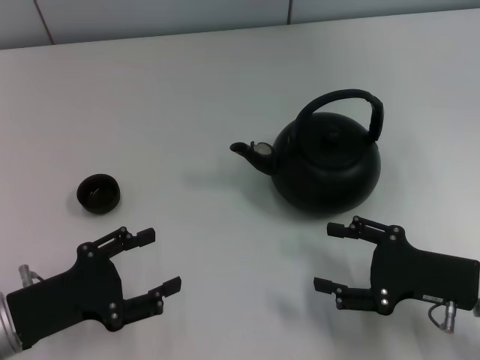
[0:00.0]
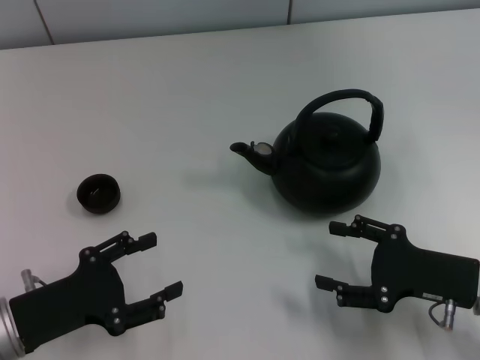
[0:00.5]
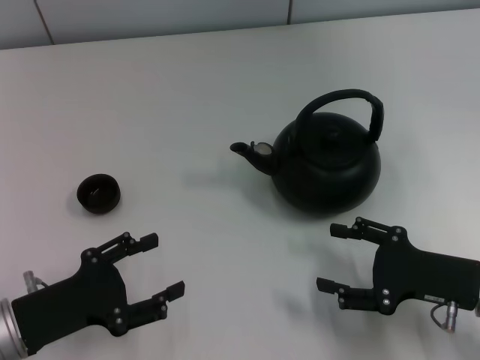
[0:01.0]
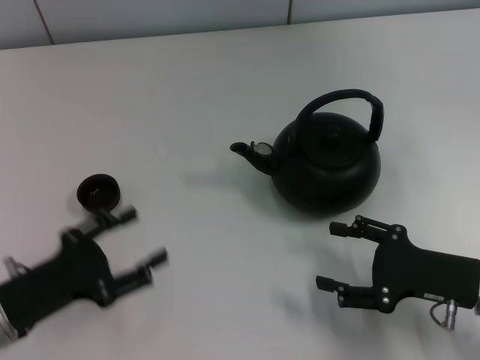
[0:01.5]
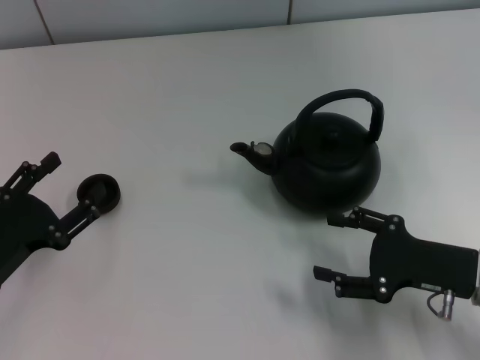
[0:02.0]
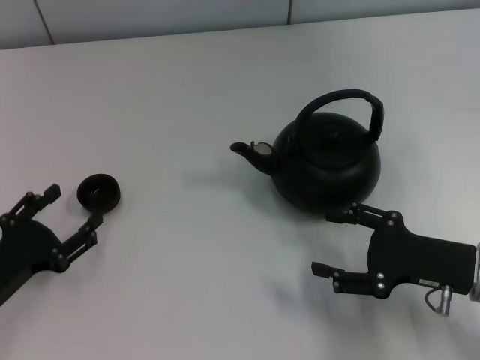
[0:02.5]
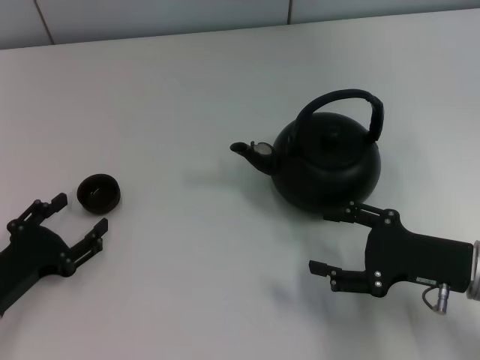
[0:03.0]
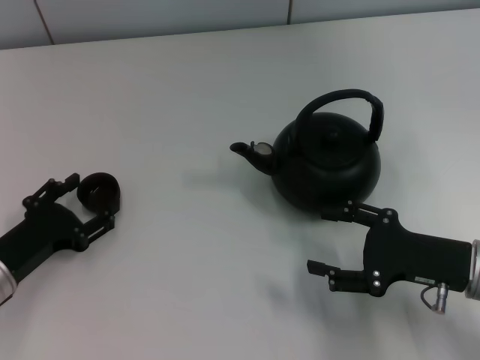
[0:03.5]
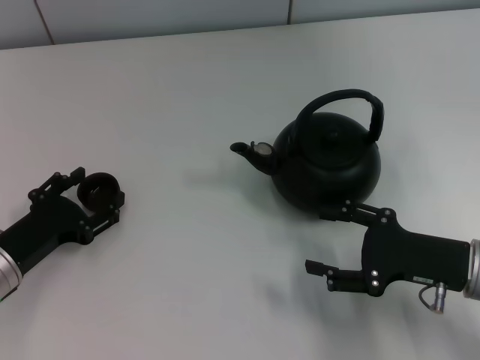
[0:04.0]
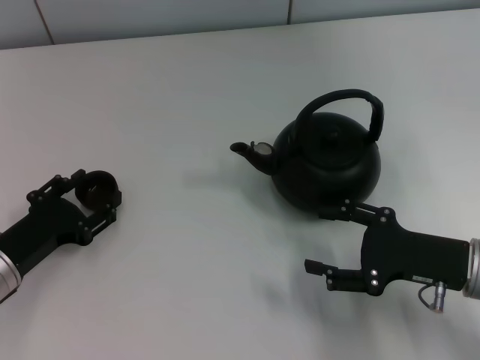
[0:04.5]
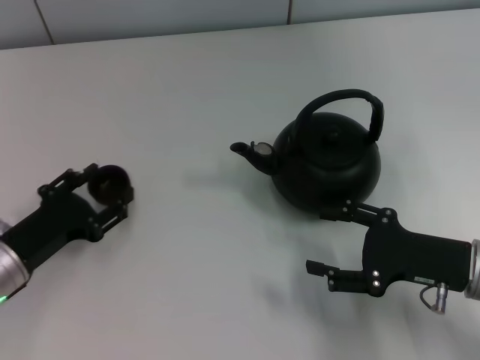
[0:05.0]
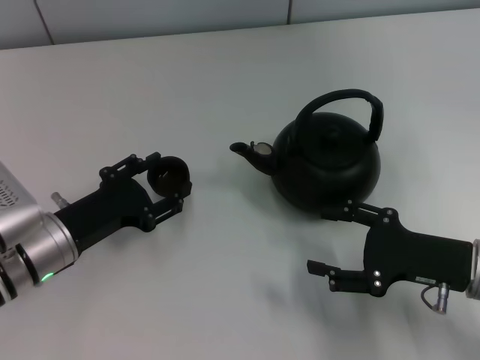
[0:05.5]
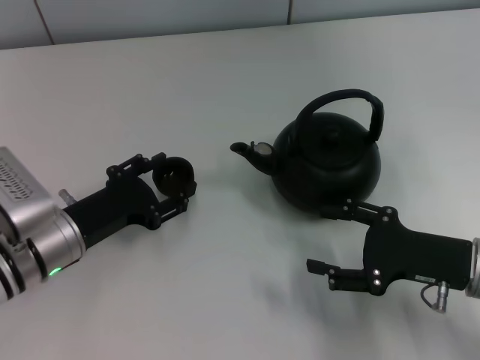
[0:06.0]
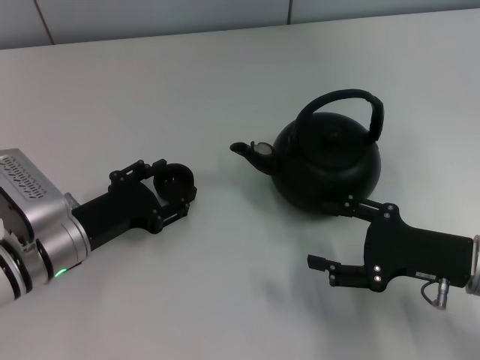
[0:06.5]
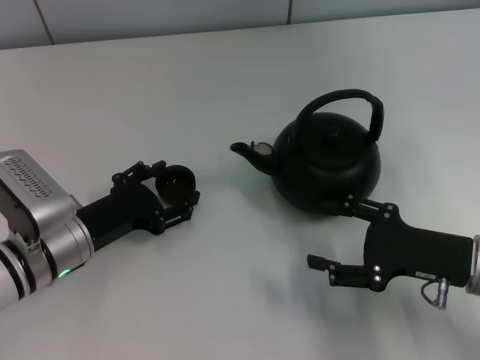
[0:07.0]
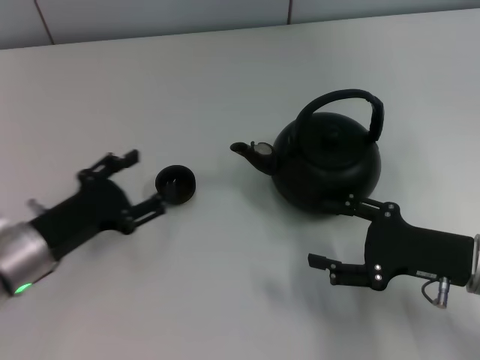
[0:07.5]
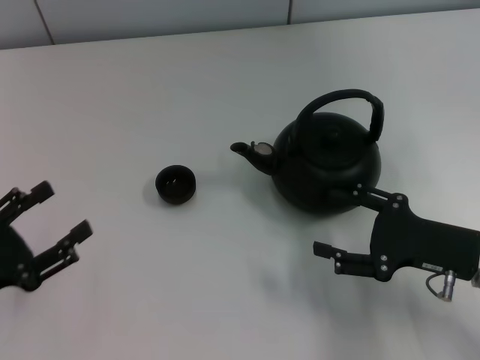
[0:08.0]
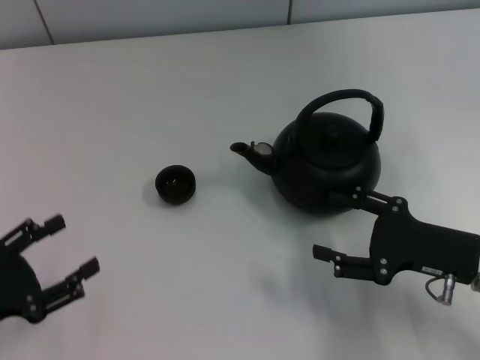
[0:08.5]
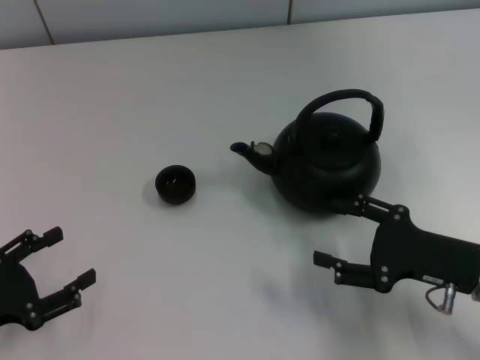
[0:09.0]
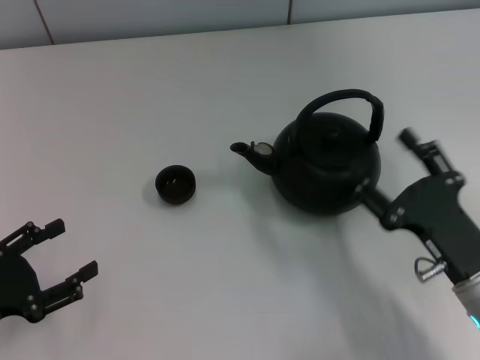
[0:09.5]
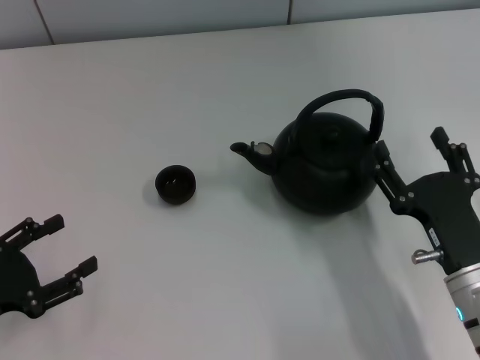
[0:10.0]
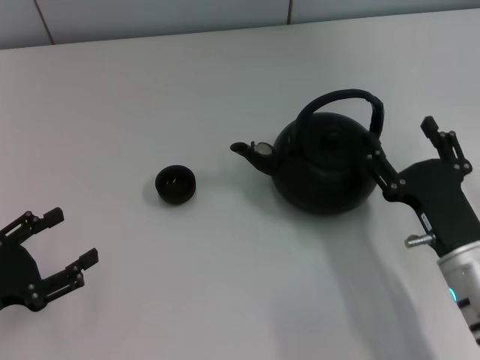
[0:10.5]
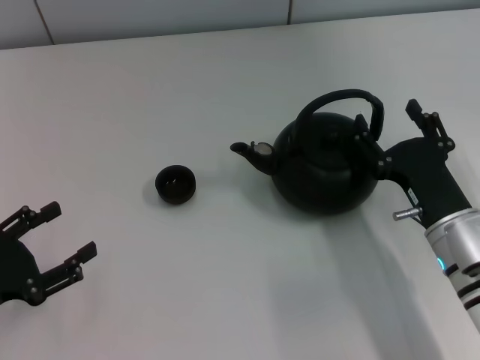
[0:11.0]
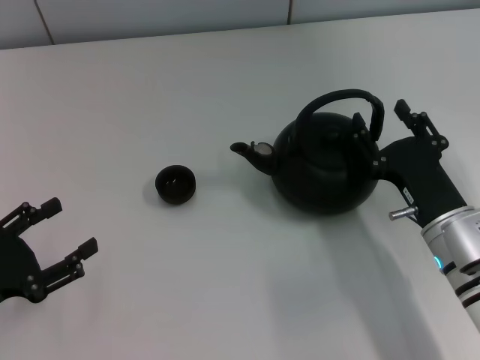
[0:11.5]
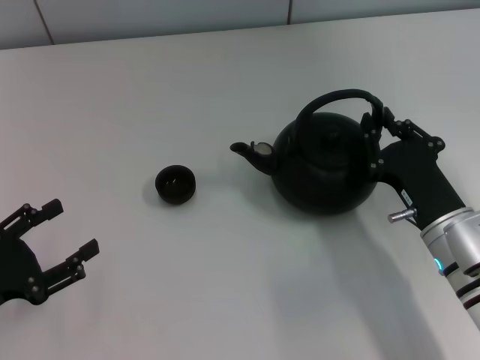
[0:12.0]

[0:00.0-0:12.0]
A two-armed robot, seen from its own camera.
Task of the whole recording: Grasp the handle of the teapot with one hand and pour tea into the teacup.
Step, 0:00.0 to 0:05.0: Pick up the teacup with the left gripper.
Step, 0:05.5 to 0:07.5: Place the teacup in the center of view with the left gripper.
0:02.0 to 0:04.0: The grippers stay close to where they were, moving slightly.
0:04.0 to 0:06.0: The left gripper moves to the right, about 5 cm.
0:06.0 to 0:08.0: The left gripper goes some 15 cm to the left and backward.
0:08.0 to 0:10.0: The right gripper goes about 5 cm to the left.
0:10.0 to 0:12.0: The right gripper moves forward, some 5 cm, and closes.

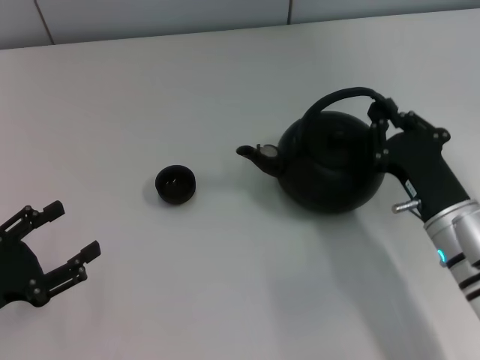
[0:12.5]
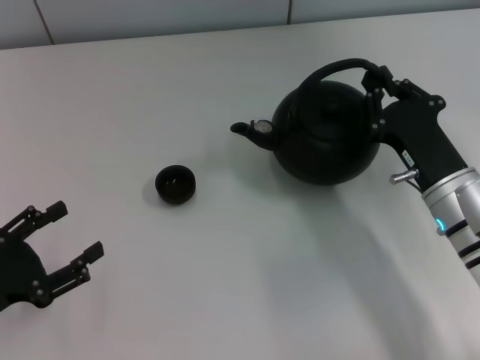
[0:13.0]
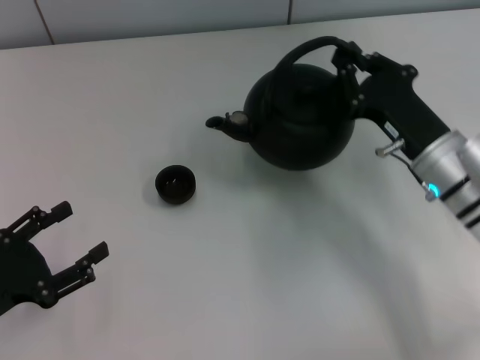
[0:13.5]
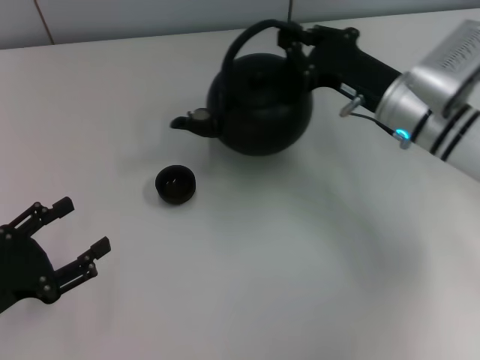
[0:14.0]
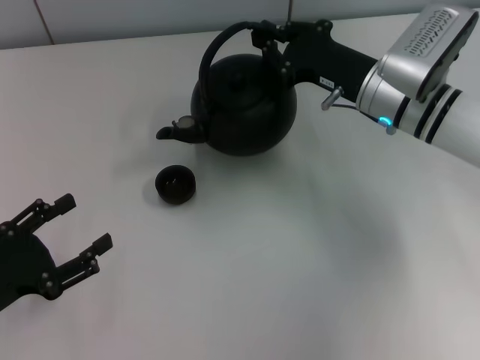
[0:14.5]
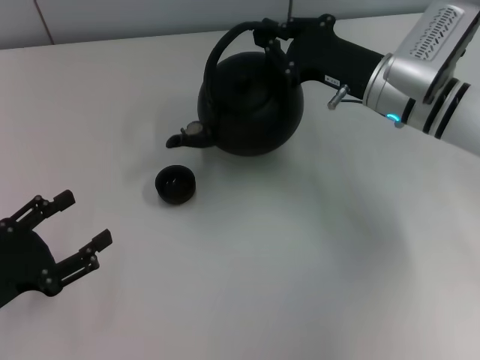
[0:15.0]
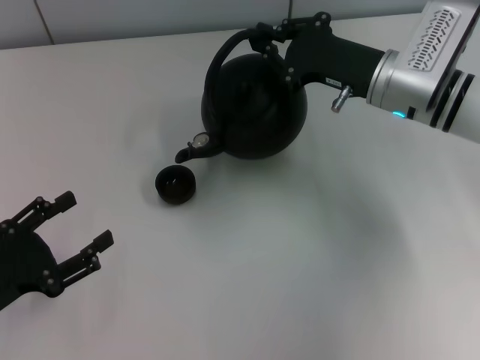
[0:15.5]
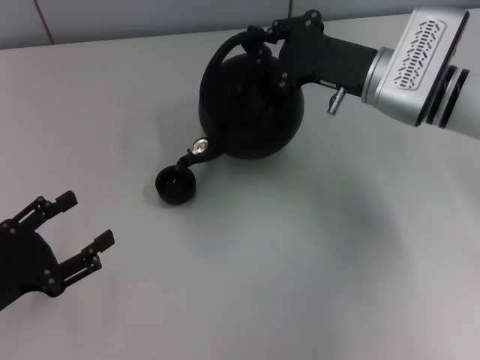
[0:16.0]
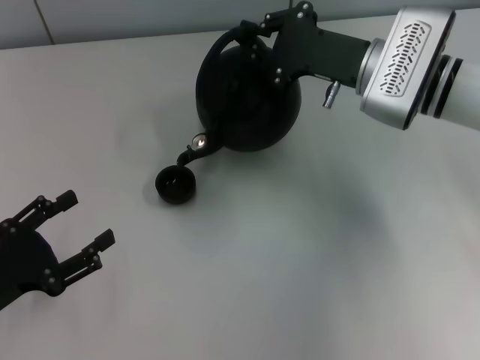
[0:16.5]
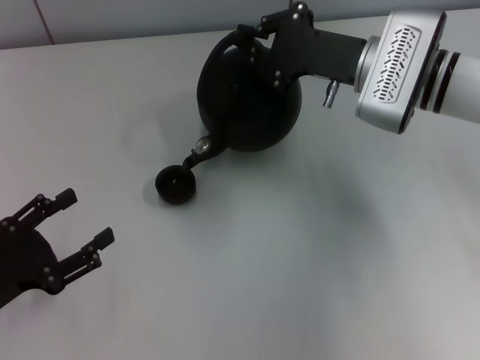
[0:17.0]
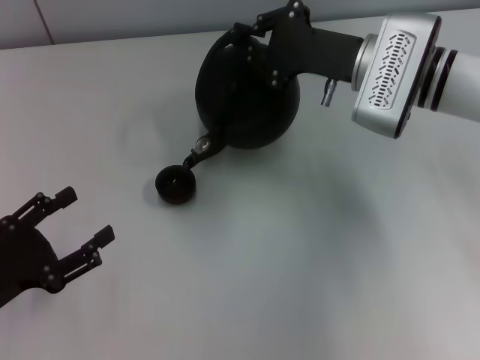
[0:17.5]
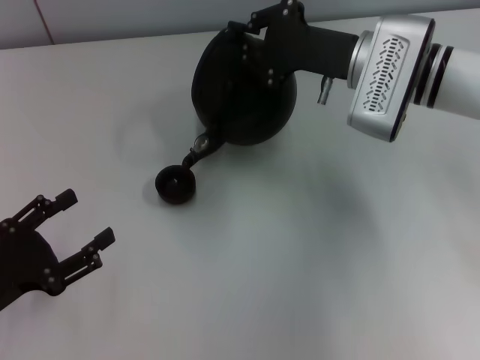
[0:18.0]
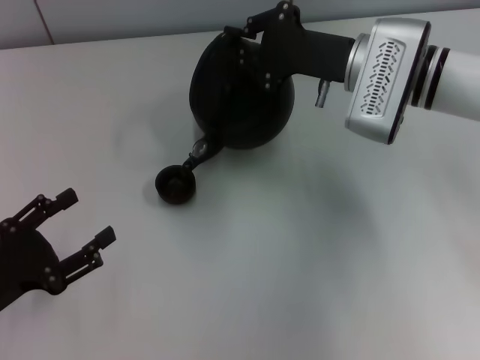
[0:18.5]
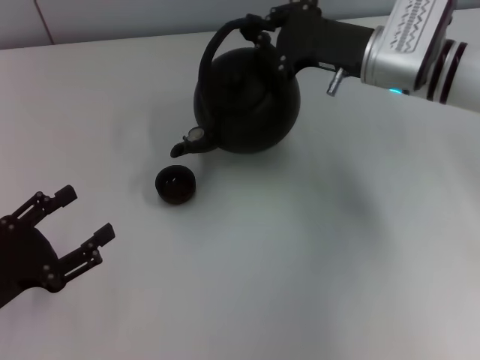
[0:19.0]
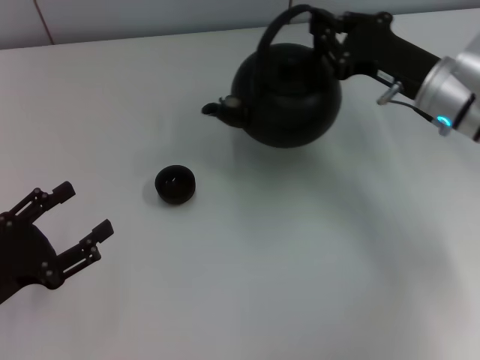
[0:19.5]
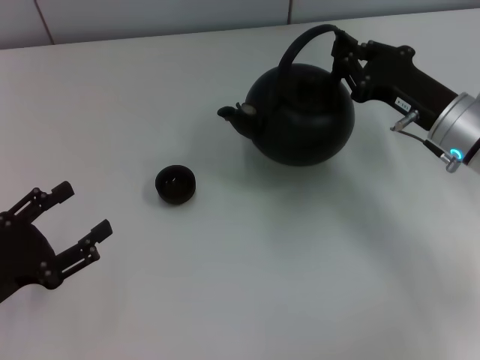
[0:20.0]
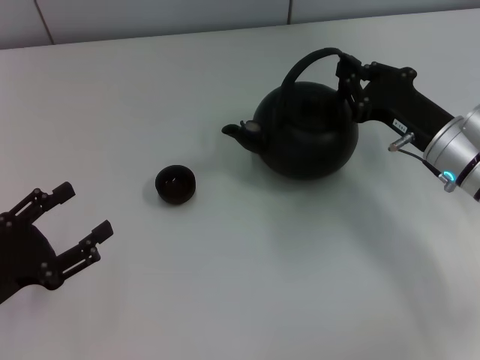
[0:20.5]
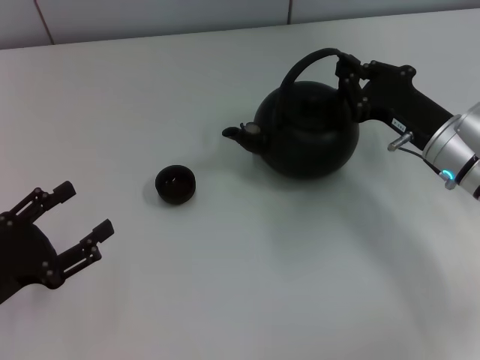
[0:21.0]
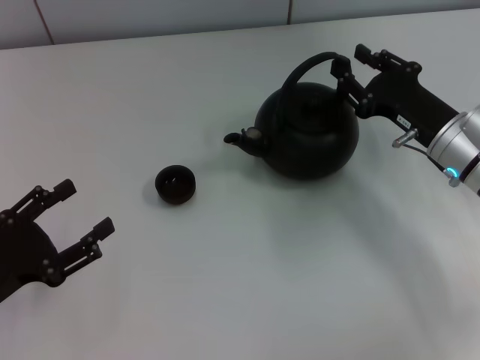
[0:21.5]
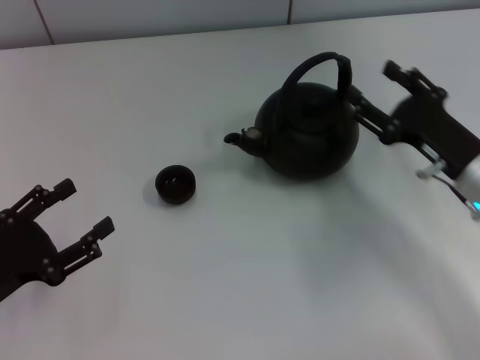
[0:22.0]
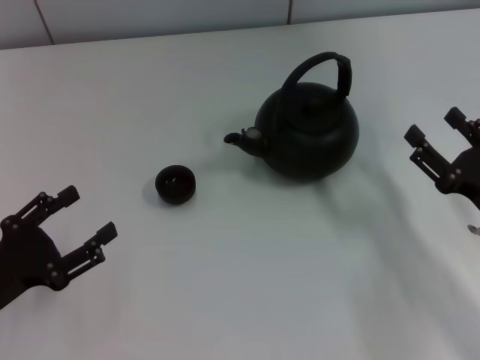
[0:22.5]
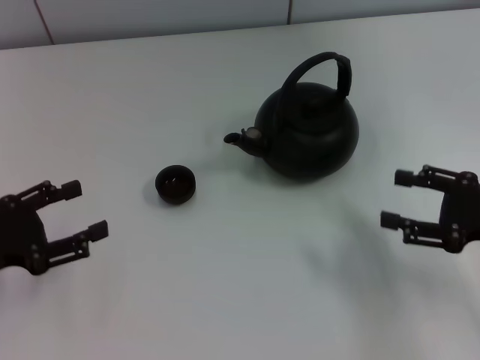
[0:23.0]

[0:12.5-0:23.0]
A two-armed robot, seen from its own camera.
Task of the whole recording: Grasp the handle of the teapot with one hand and pour tea into the teacup.
Step, 0:19.5 to 0:22.0: Put down the teapot with the right gripper.
0:12.5 to 0:14.5: The right gripper moves forward and upward, roughly 15 cm.
0:16.5 to 0:19.0: The grippers make only small movements.
0:19.0 to 0:21.0: The right gripper shifts roughly 10 cm backward, downward and to the right.
0:21.0 to 0:23.0: The right gripper is displaced backward and to the right by approximately 15 cm, and opens up.
